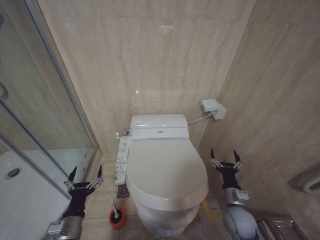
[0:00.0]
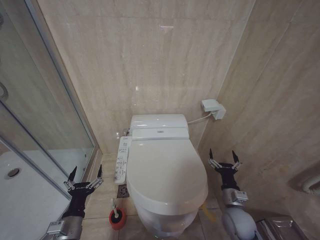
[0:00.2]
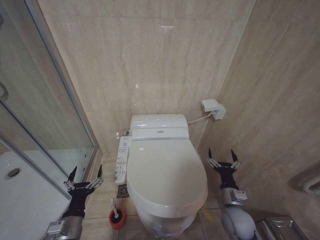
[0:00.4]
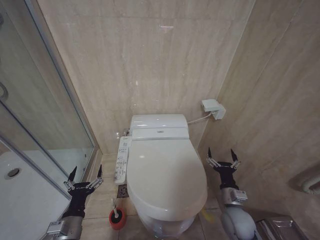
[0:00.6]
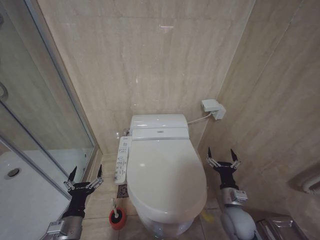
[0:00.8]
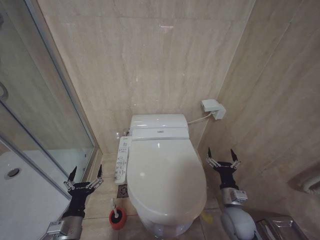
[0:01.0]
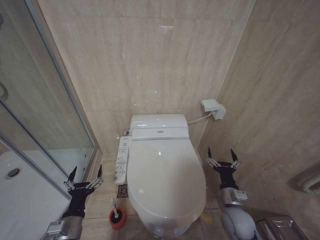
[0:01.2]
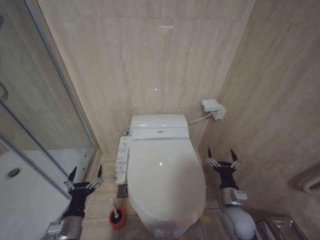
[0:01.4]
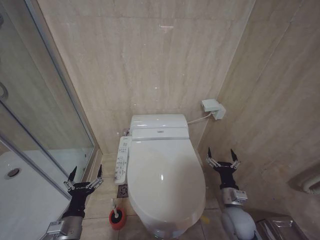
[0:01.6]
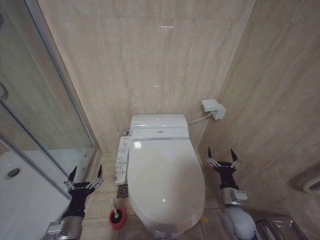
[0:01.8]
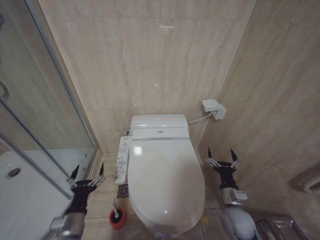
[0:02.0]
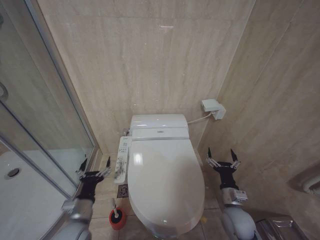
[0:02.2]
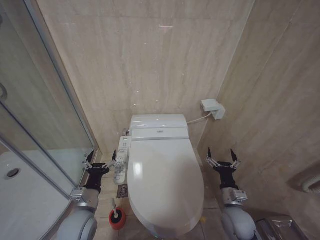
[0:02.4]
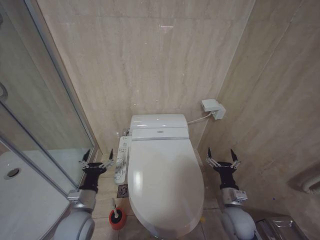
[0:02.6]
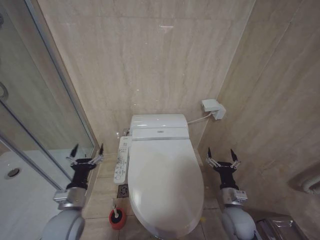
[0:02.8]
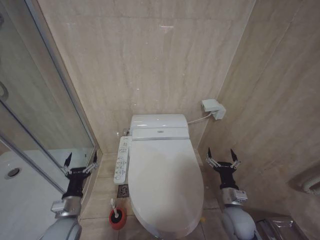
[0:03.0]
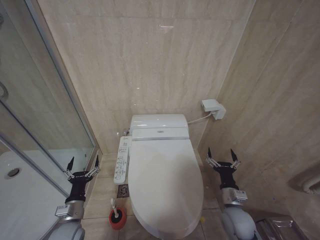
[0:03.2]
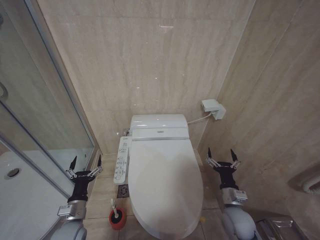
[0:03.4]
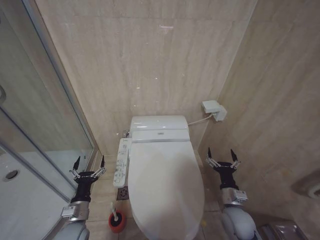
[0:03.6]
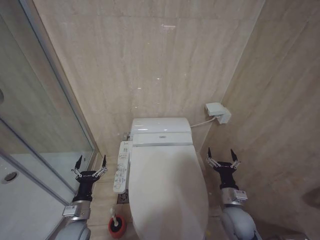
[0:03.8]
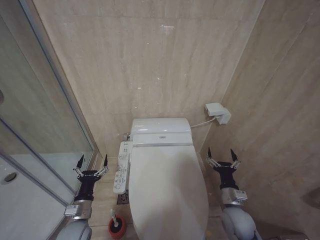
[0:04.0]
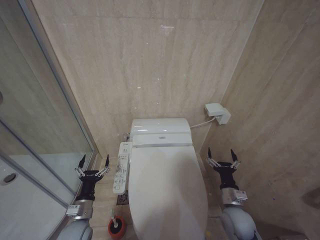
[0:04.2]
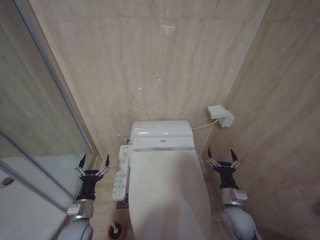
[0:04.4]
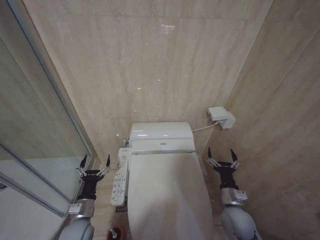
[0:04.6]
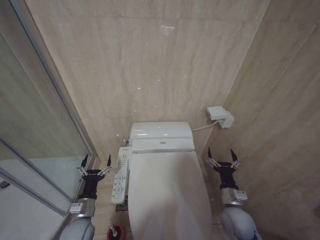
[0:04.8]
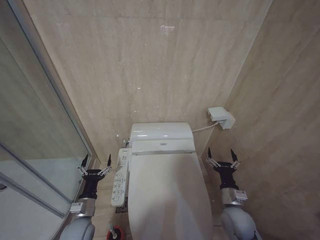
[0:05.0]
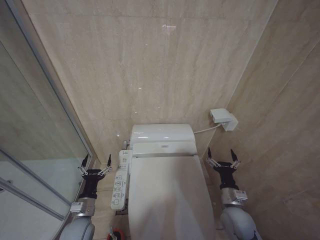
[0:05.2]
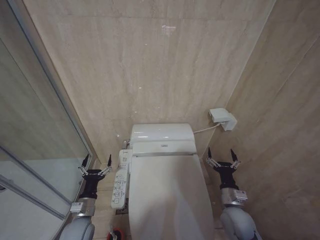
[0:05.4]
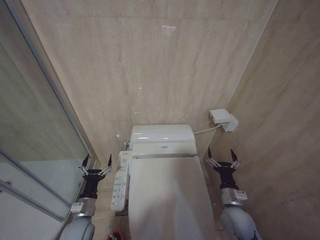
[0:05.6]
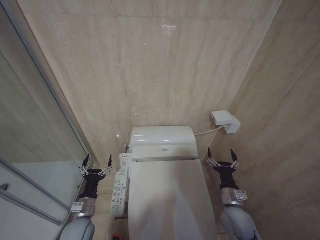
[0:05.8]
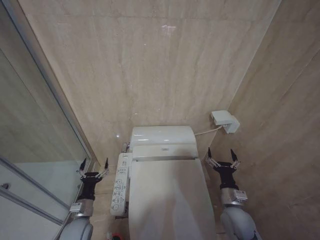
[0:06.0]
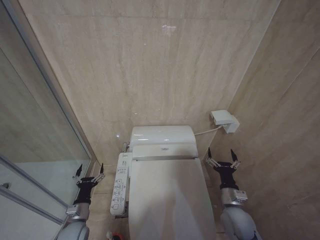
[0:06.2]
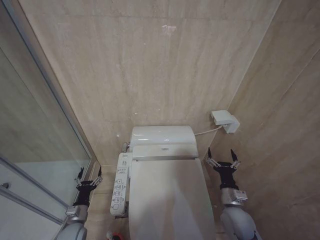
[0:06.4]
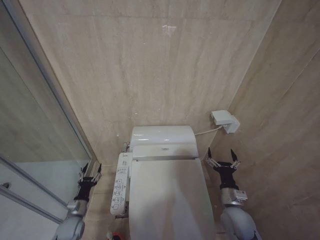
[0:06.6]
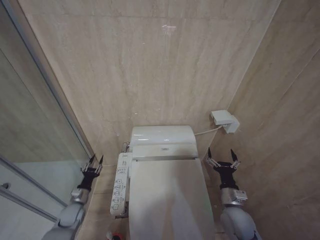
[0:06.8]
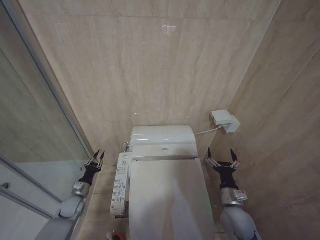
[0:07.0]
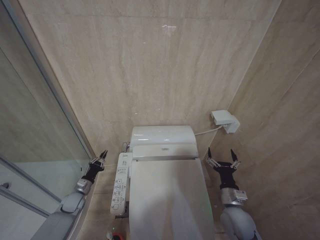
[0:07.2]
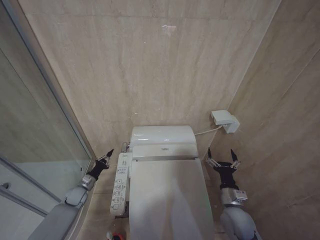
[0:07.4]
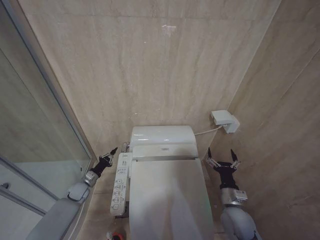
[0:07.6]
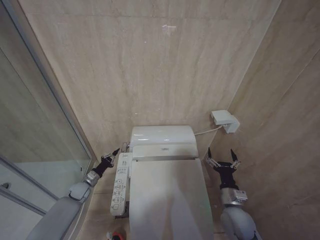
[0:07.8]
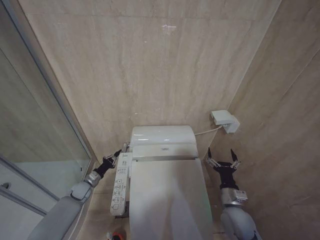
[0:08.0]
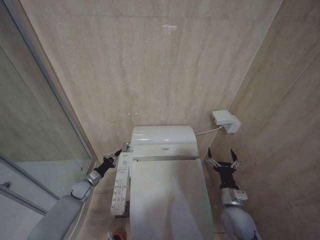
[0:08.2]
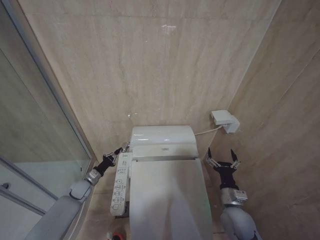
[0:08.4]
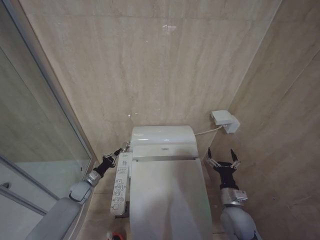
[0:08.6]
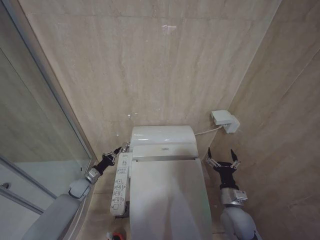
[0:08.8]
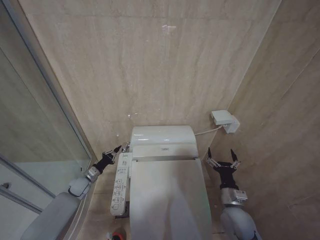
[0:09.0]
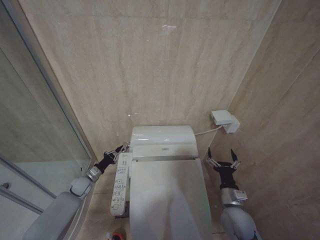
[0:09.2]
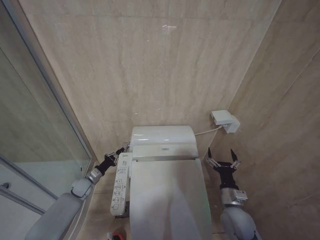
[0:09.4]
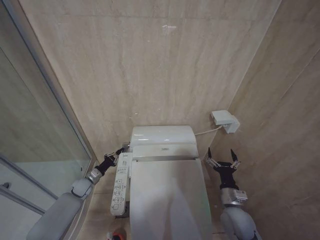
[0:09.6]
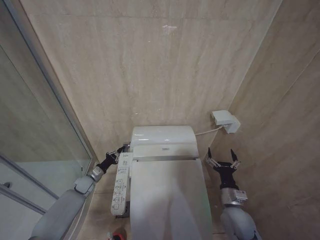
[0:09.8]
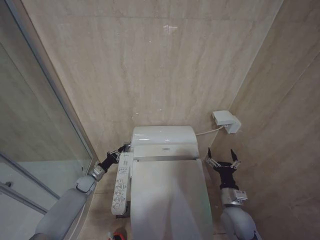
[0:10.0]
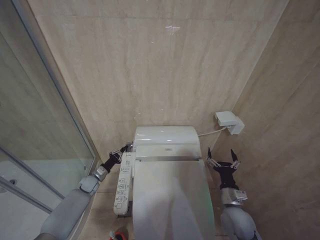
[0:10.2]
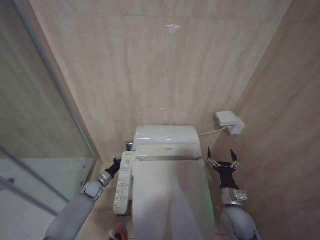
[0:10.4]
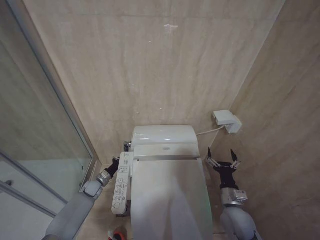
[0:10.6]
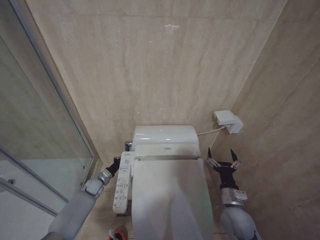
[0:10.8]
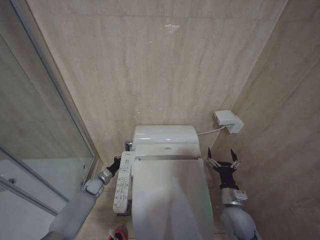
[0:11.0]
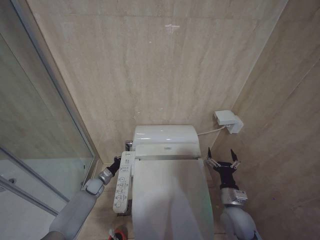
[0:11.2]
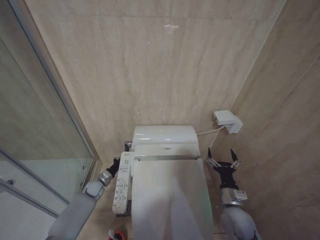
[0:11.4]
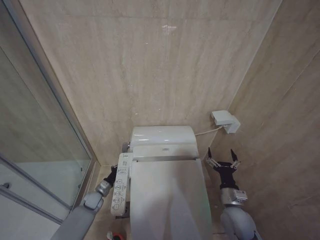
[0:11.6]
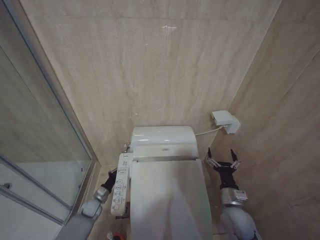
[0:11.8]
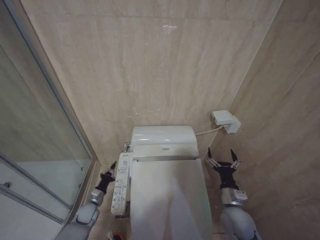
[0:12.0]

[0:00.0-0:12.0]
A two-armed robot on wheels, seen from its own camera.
Task of the whole recording: Open the toilet lid, clean the toilet bowl with a toilet brush, close the toilet lid, and flush.
0:00.0 to 0:01.6: There are only small adjustments of the grippers.
0:01.6 to 0:03.0: The left gripper is displaced forward by some 5 cm.
0:03.0 to 0:04.4: The left gripper ends up about 5 cm from where it was.
0:04.4 to 0:06.0: There are only small adjustments of the grippers.
0:06.0 to 0:07.6: The left gripper moves forward and to the left, approximately 20 cm, and closes up.
0:09.0 to 0:10.4: The left gripper changes place by roughly 5 cm.
0:10.4 to 0:12.0: The left gripper is displaced backward and downward by roughly 10 cm.

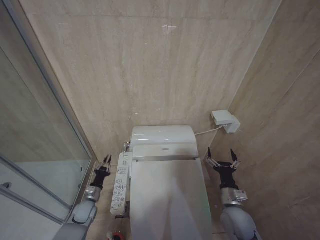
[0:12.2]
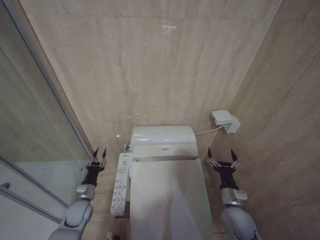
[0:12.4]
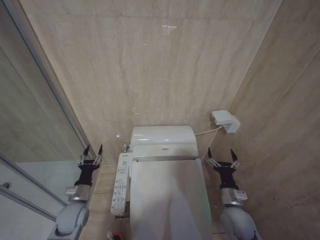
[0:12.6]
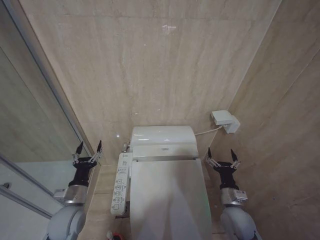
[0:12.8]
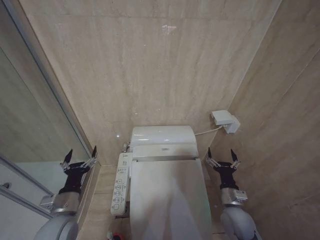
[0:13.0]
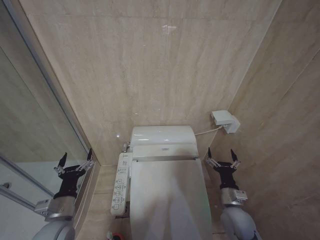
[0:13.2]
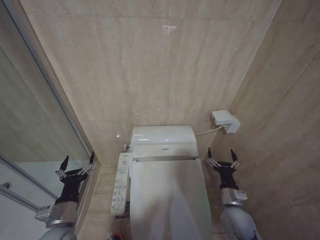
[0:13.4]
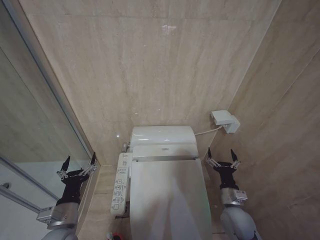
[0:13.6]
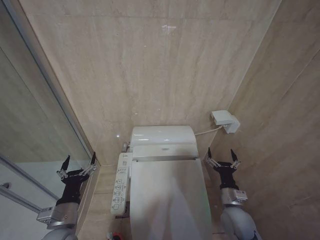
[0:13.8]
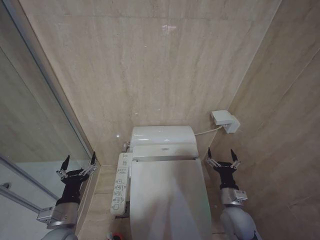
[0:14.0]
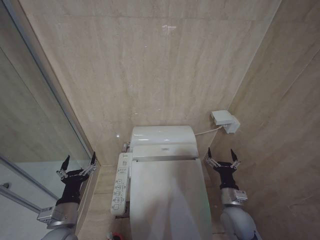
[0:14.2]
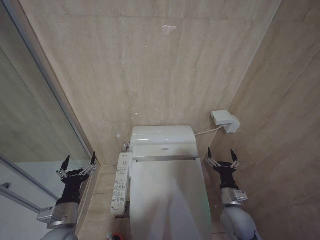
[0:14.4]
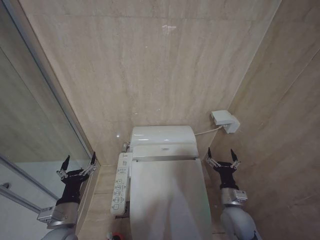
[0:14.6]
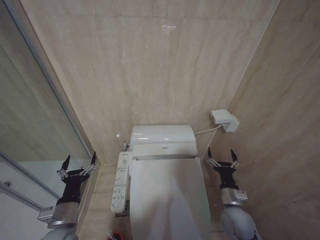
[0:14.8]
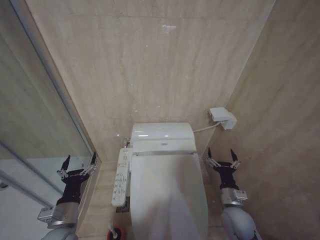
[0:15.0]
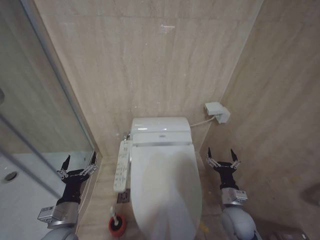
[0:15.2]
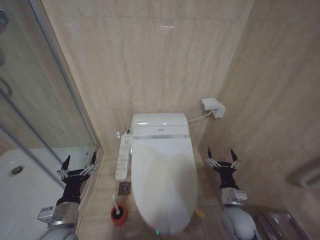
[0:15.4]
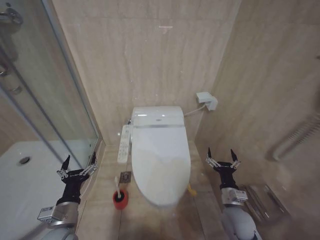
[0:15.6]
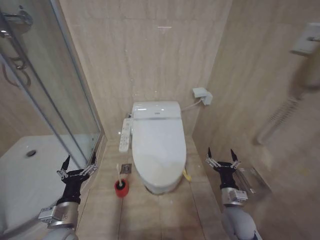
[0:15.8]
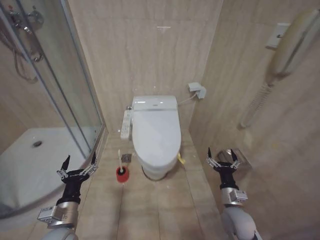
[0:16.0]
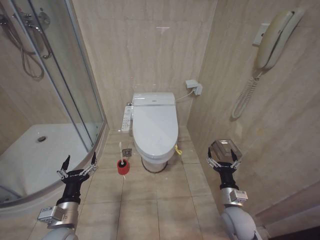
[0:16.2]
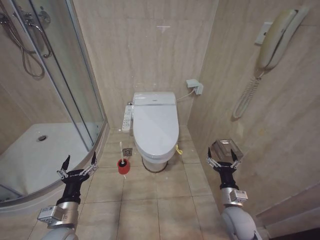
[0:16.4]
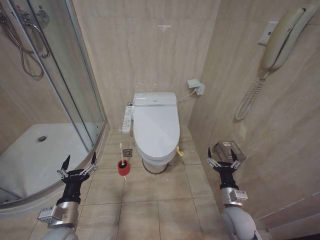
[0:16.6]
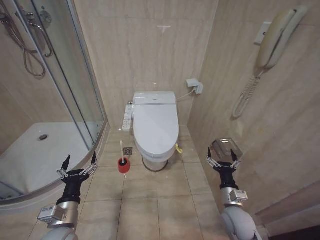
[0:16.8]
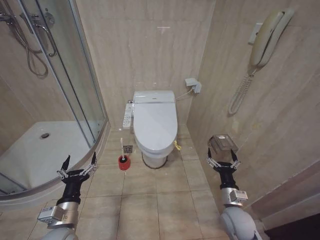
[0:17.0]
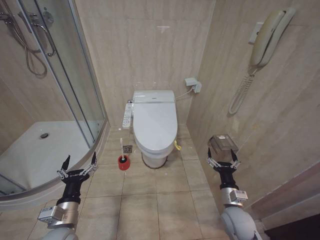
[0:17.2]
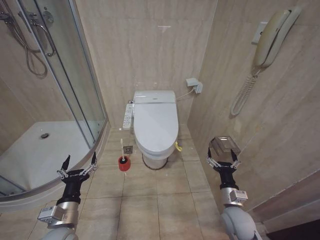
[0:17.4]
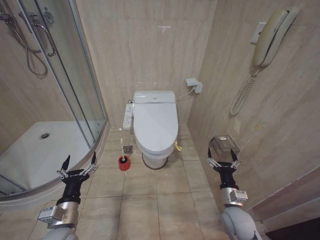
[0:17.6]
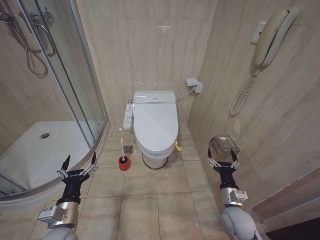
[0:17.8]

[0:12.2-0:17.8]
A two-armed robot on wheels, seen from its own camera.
Task of the whole recording: Open the toilet lid, clean the toilet bowl with a toilet brush, close the toilet lid, and flush.
0:12.2 to 0:13.6: The left gripper shifts some 25 cm upward and backward, and opens.
0:13.6 to 0:15.0: Both grippers stay put.
0:16.4 to 0:17.8: Both grippers stay put.

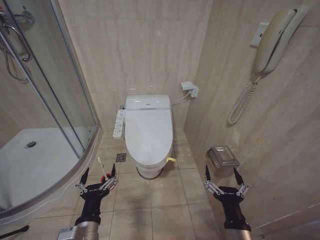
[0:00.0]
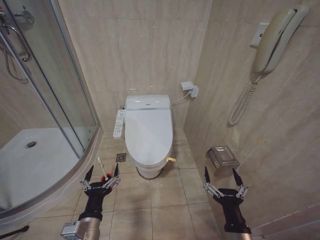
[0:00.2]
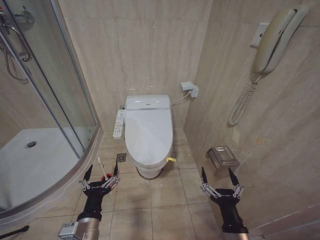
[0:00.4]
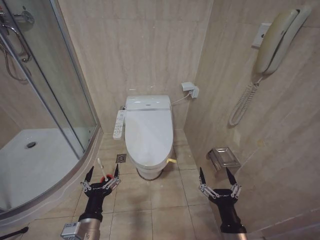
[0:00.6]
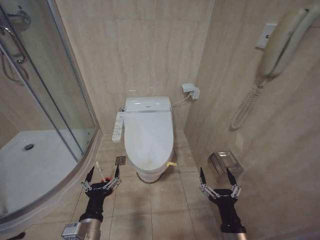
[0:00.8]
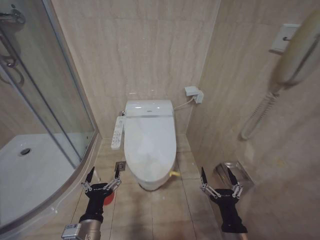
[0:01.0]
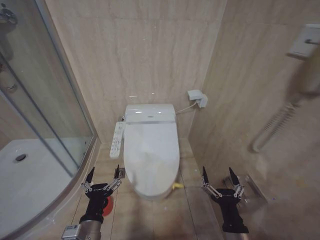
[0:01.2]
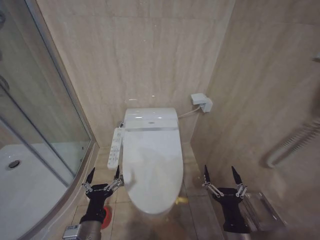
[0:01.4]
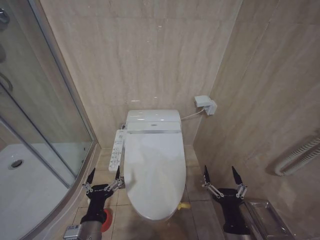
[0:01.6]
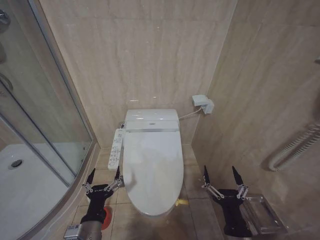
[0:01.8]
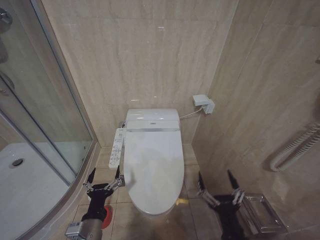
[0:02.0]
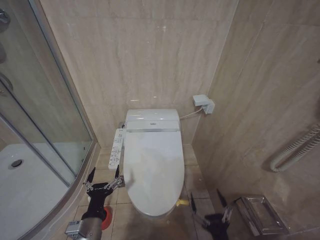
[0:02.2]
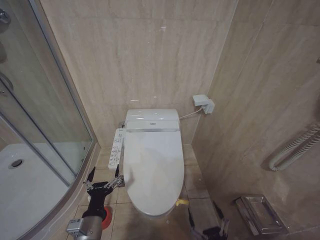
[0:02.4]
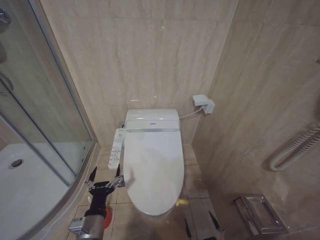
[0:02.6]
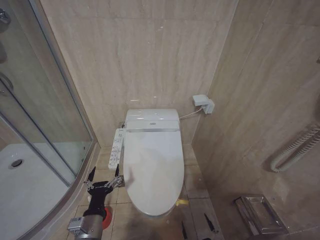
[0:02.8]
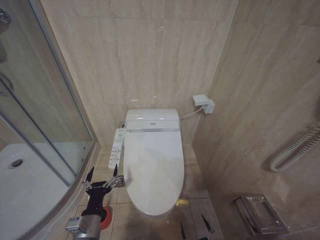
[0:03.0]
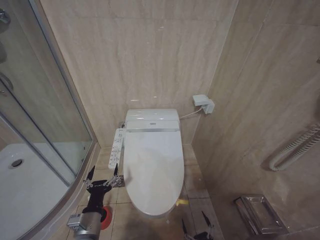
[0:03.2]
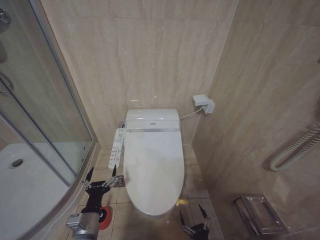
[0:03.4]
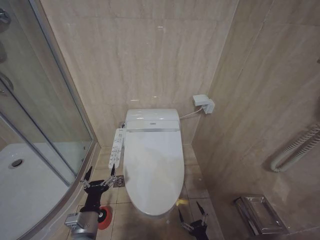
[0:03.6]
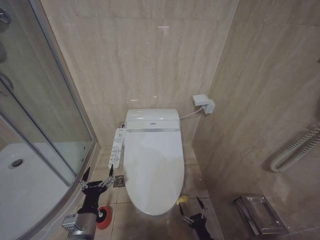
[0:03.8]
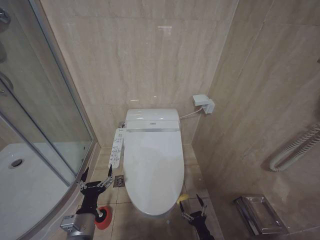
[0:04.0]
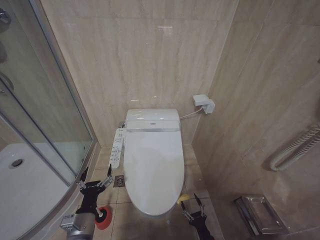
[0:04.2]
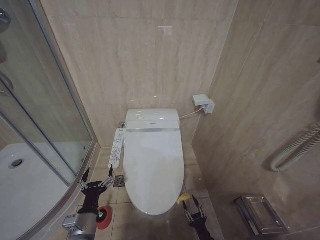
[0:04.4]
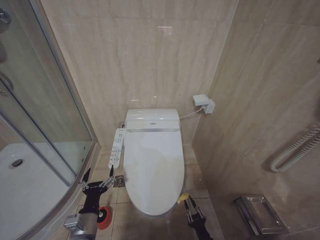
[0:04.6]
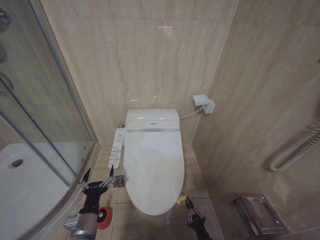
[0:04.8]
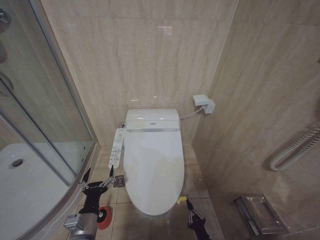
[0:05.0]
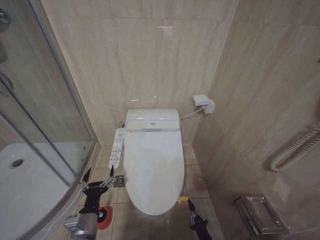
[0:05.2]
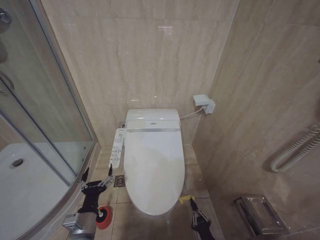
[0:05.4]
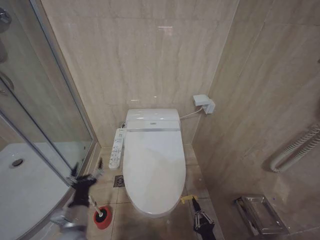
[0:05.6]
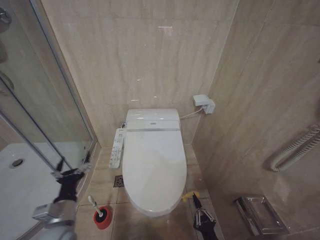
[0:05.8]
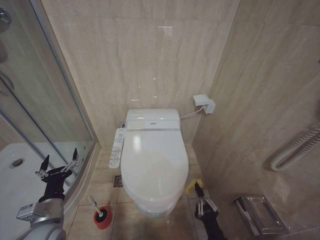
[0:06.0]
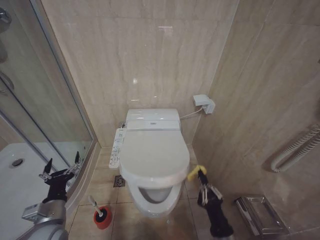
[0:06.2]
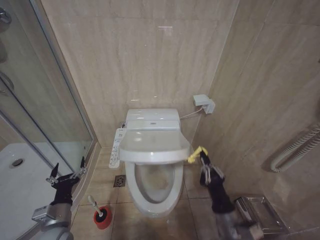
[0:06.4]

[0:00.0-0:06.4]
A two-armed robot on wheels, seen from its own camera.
Task of the whole recording: Open the toilet lid, clean the toilet bowl with a toilet brush, close the toilet lid, and flush.
0:01.6 to 0:03.2: The right gripper heads downward, covering approximately 20 cm.
0:03.2 to 0:04.8: The right gripper travels forward by roughly 10 cm, and closes up.
0:04.8 to 0:06.4: The left gripper goes about 10 cm to the left. Meanwhile the right gripper travels upward by roughly 25 cm, and closes.
